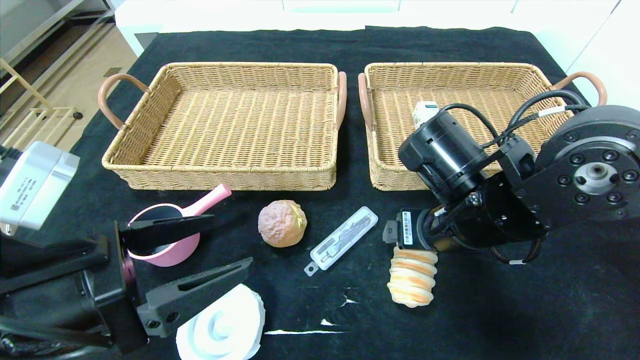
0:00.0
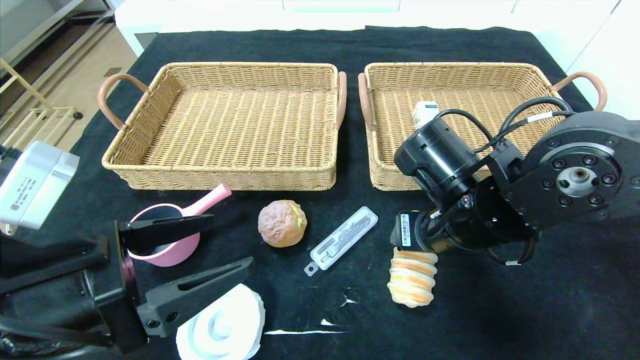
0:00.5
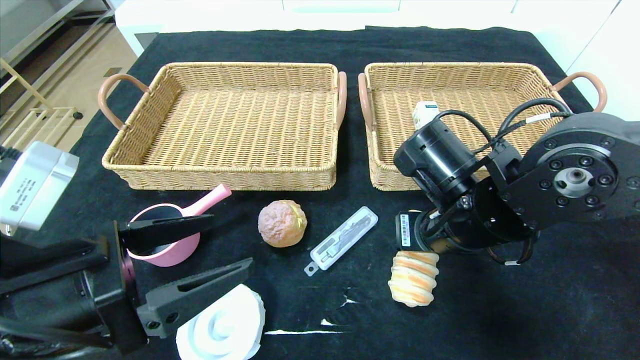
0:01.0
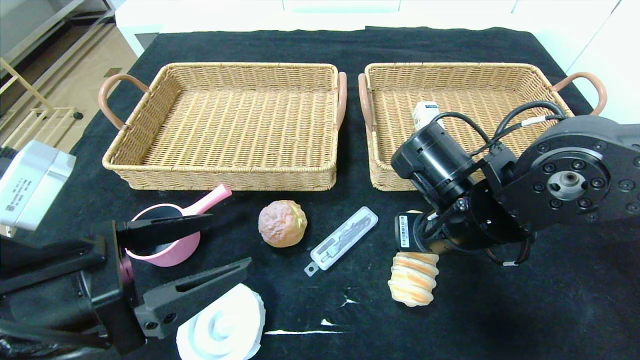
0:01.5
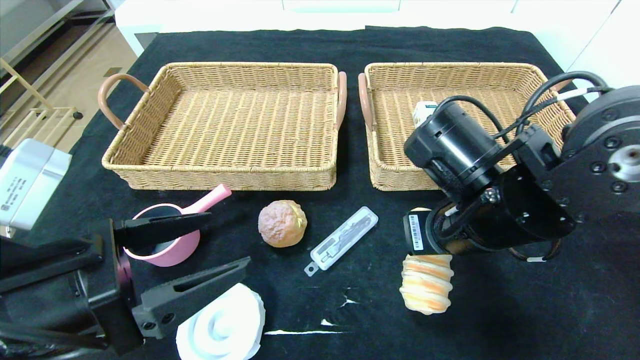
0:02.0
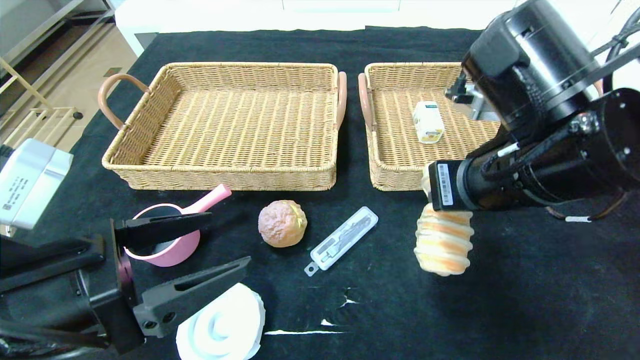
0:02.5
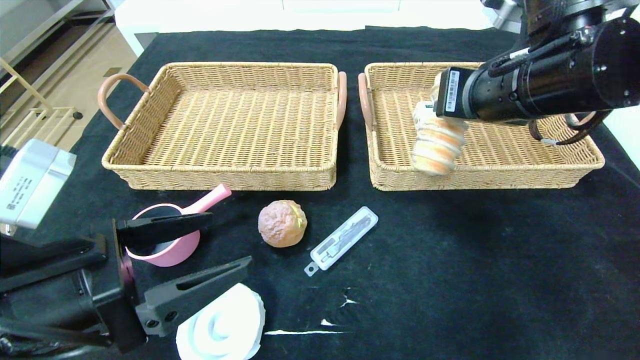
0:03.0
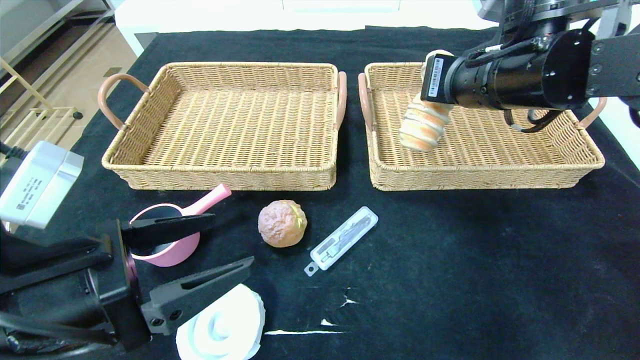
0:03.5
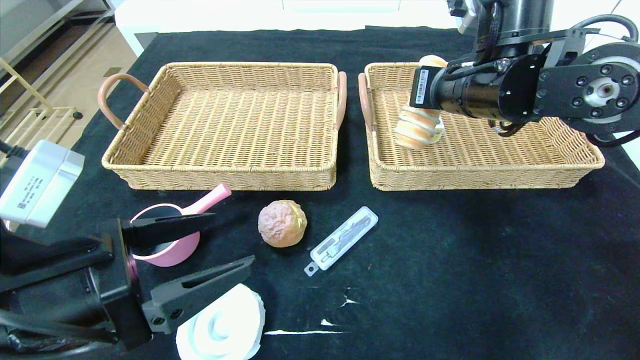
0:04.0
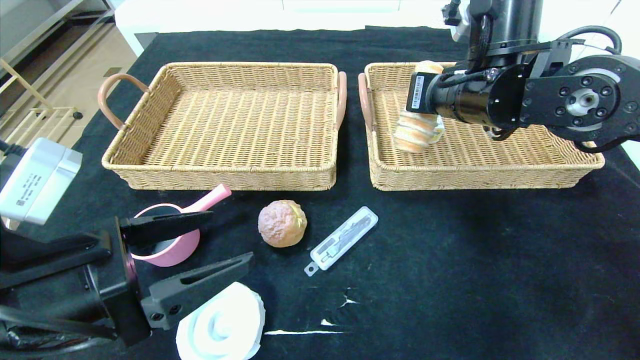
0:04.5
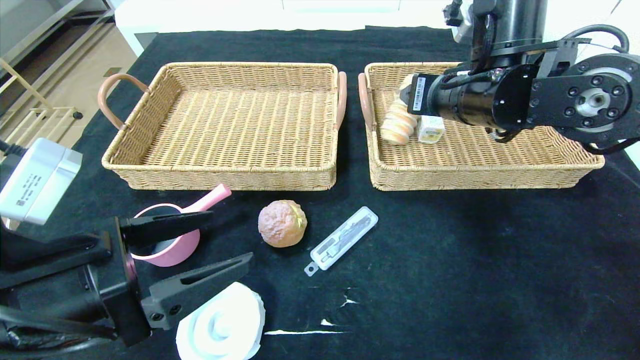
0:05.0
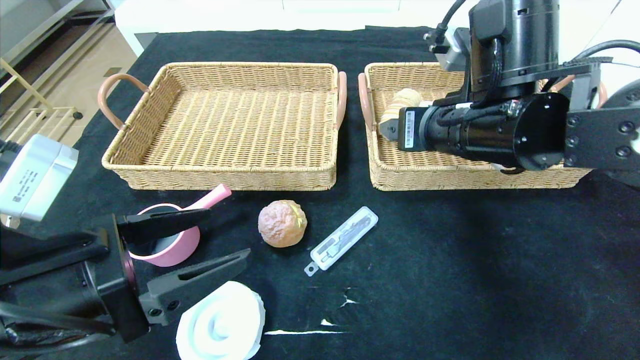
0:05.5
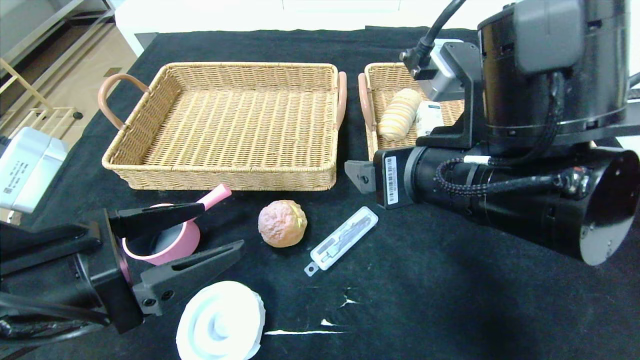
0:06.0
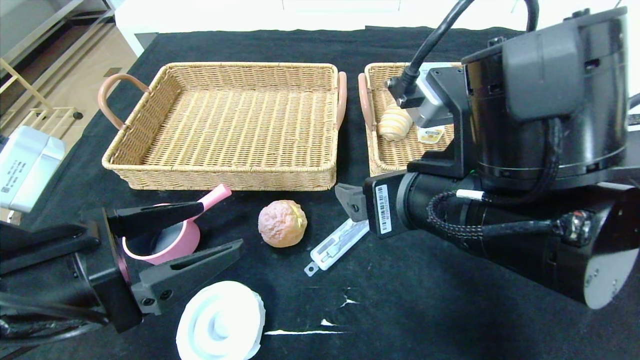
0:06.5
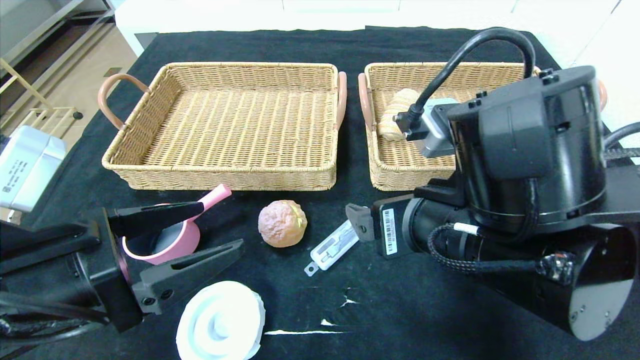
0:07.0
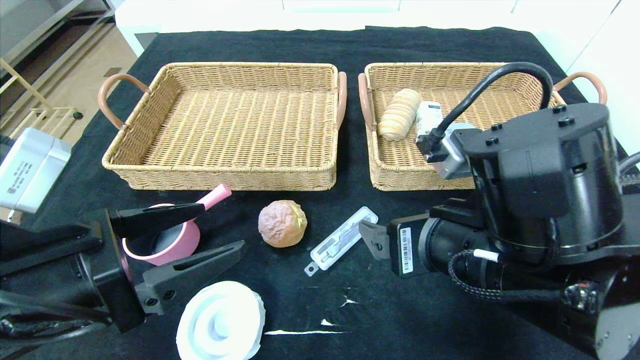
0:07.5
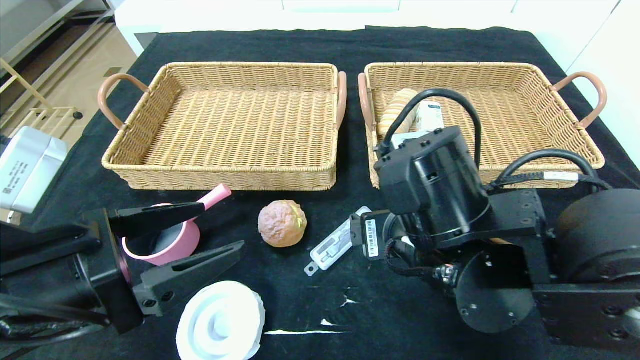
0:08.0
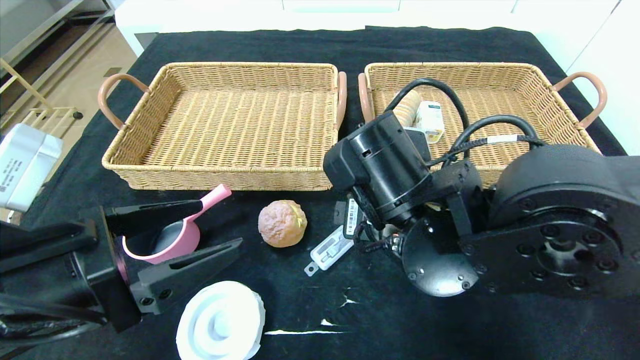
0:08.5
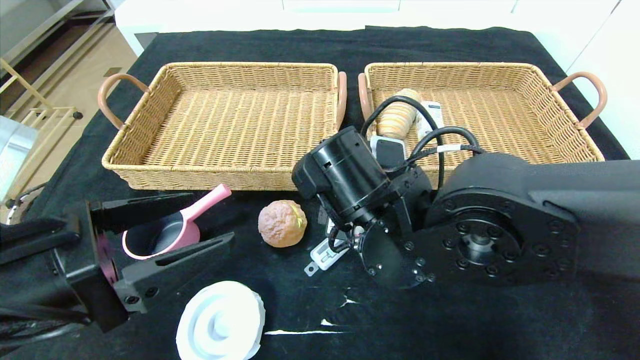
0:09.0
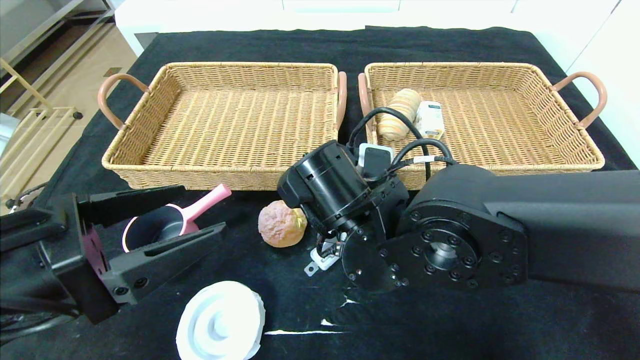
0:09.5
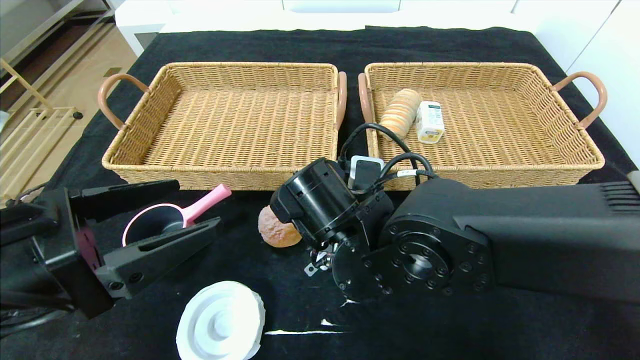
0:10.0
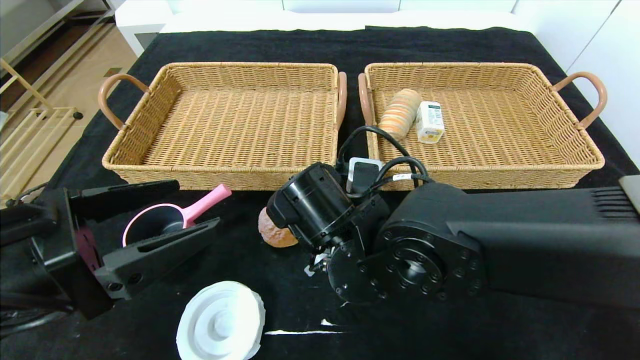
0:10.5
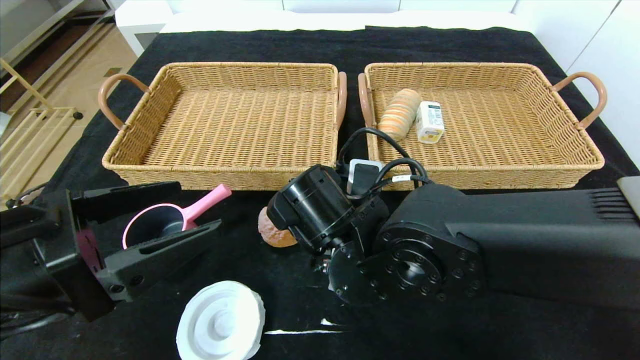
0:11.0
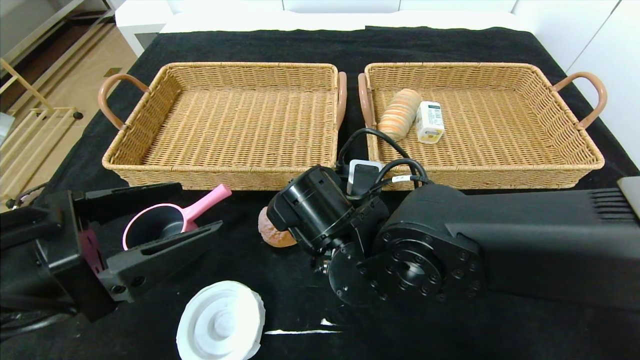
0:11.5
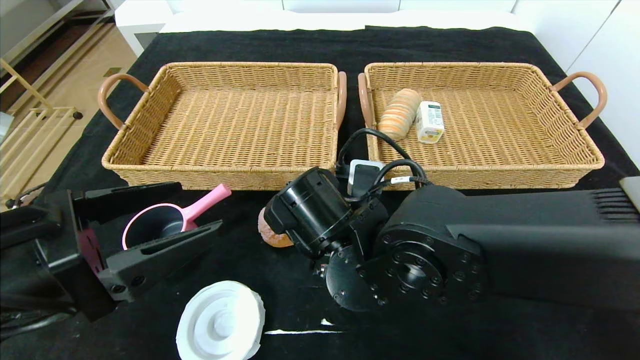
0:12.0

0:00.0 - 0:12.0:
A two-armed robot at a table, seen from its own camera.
Step, 0:00.0 - 0:05.0: Grasp the long bread and put it in the right basket.
0:00.0 - 0:02.0: The right gripper closes.
0:02.0 - 0:04.0: The right gripper is displaced forward and upward by some 15 cm.
0:04.0 - 0:06.0: The right gripper heads backward, covering approximately 15 cm, and opens up.
0:06.0 - 0:08.0: The right gripper heads downward, covering about 5 cm.
0:08.0 - 0:10.0: The right gripper shifts approximately 5 cm to the left.
0:10.0 - 0:12.0: The right gripper closes.

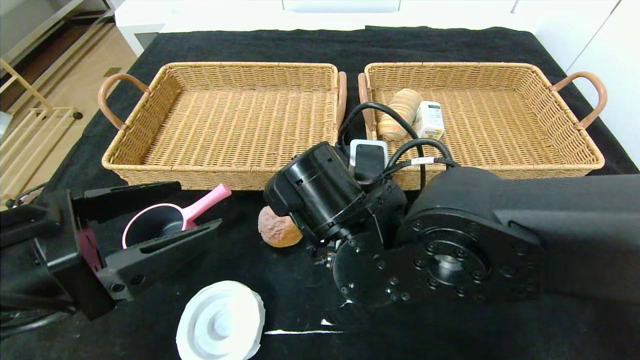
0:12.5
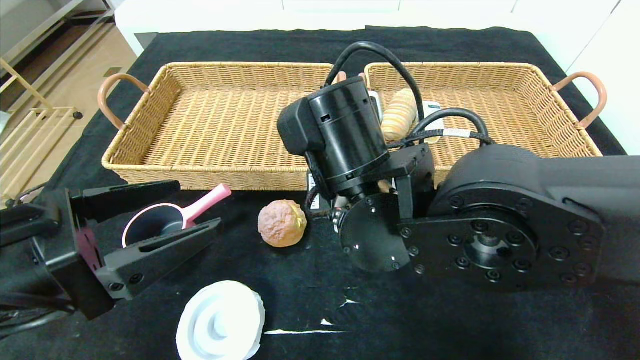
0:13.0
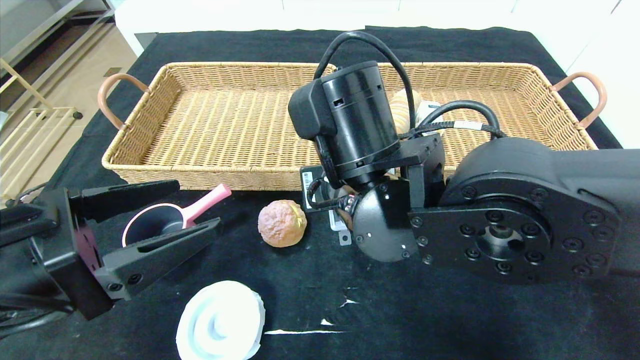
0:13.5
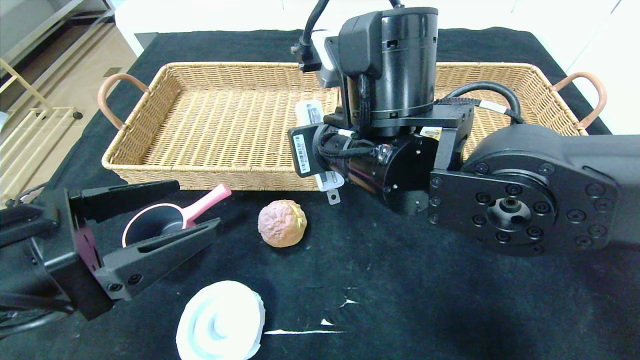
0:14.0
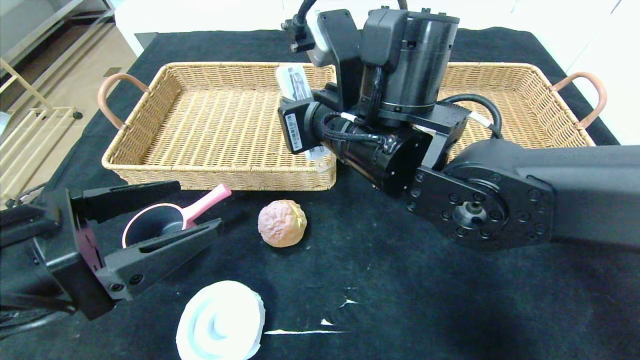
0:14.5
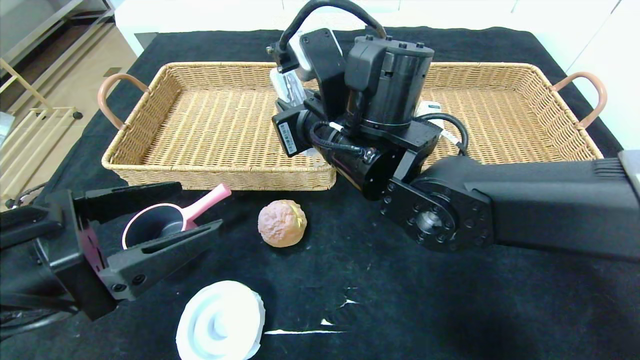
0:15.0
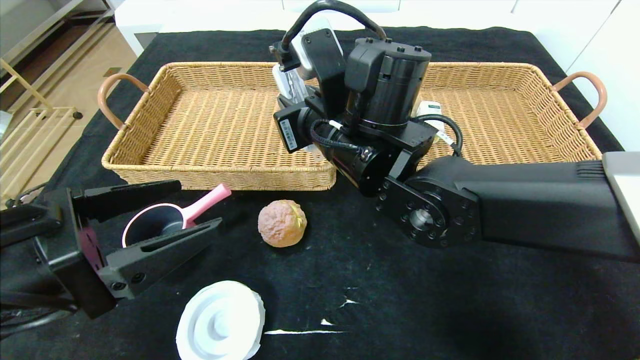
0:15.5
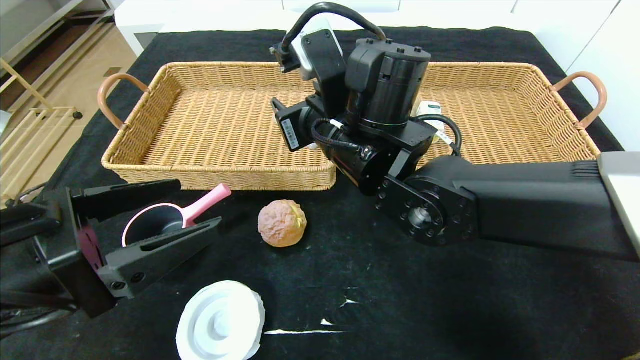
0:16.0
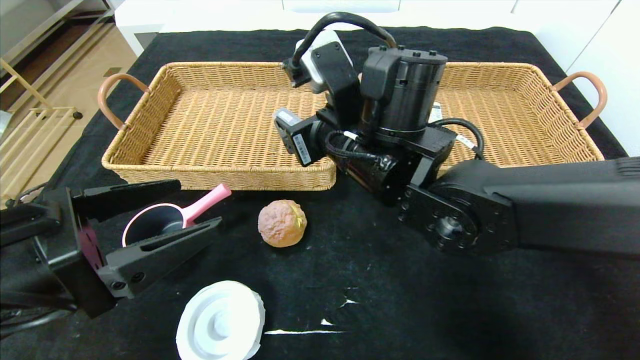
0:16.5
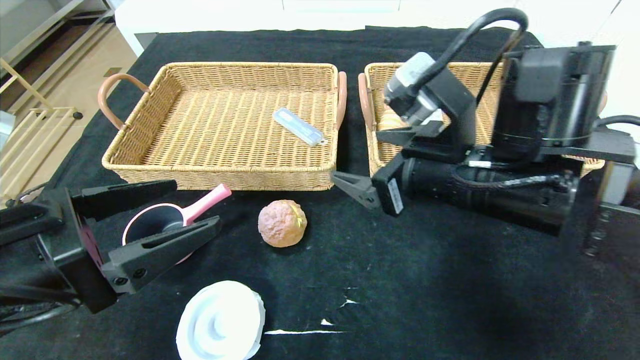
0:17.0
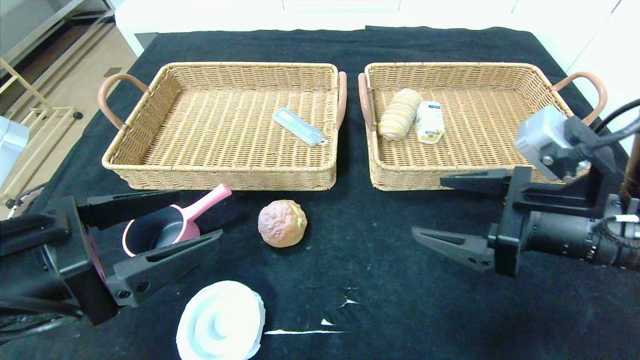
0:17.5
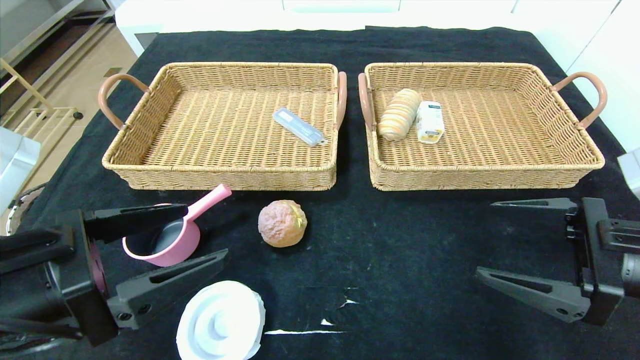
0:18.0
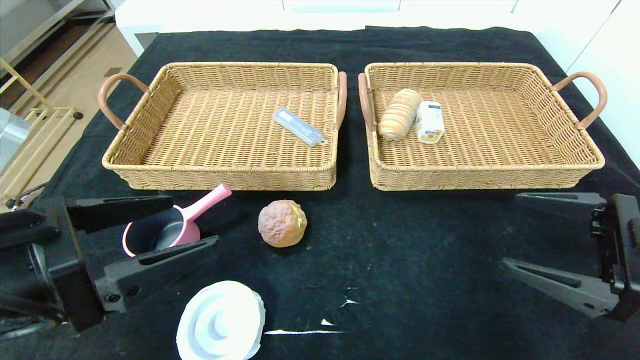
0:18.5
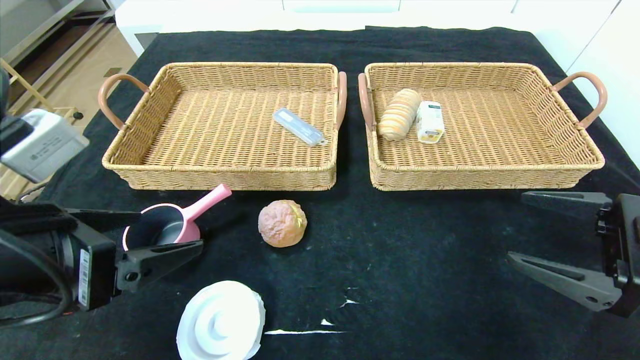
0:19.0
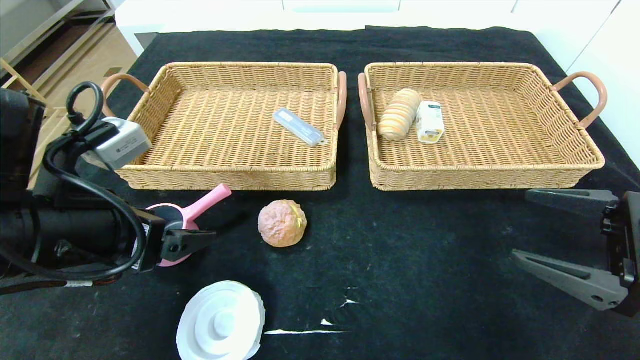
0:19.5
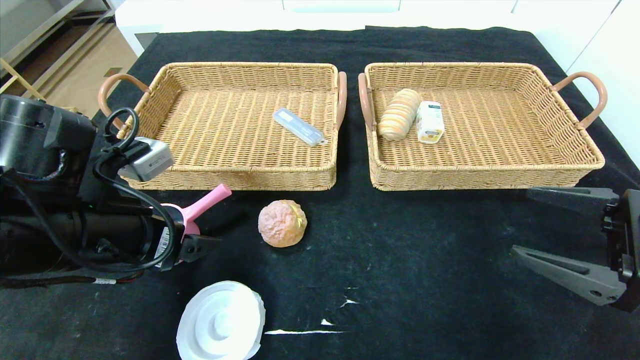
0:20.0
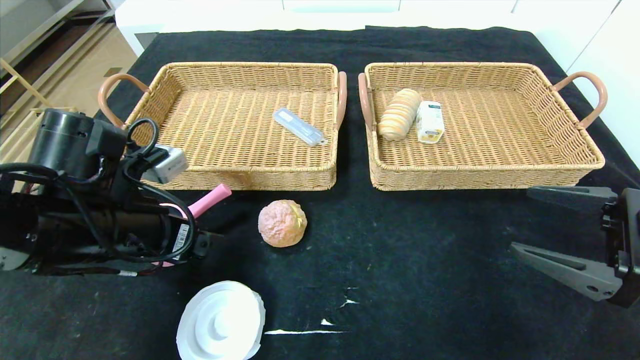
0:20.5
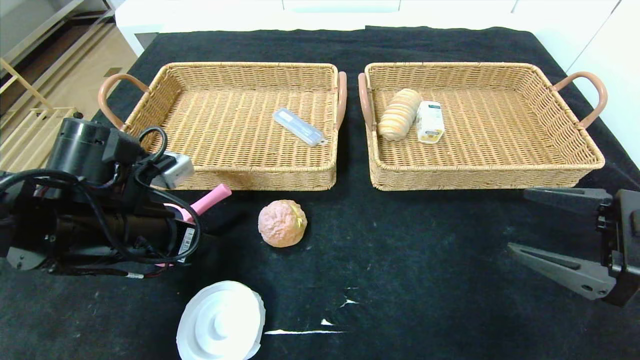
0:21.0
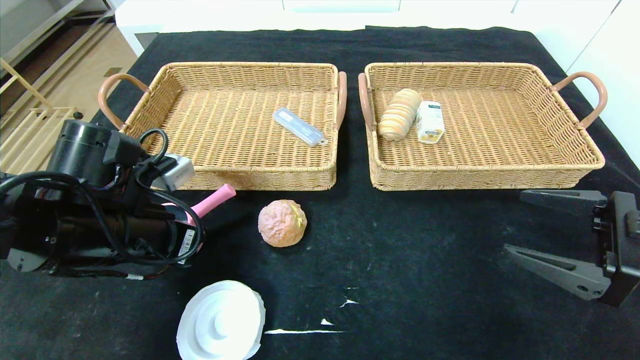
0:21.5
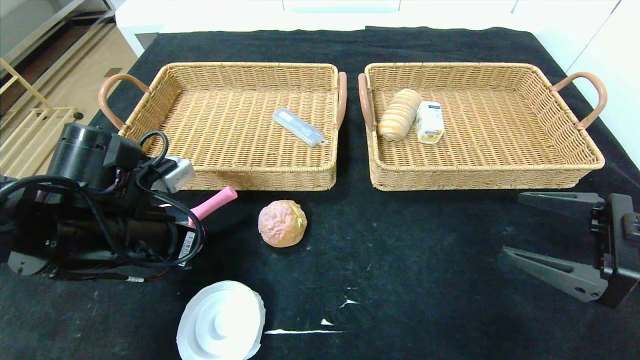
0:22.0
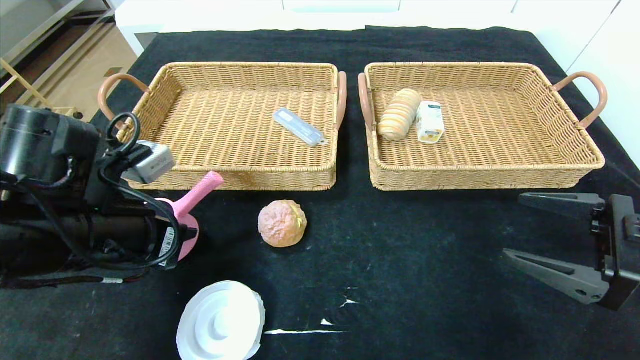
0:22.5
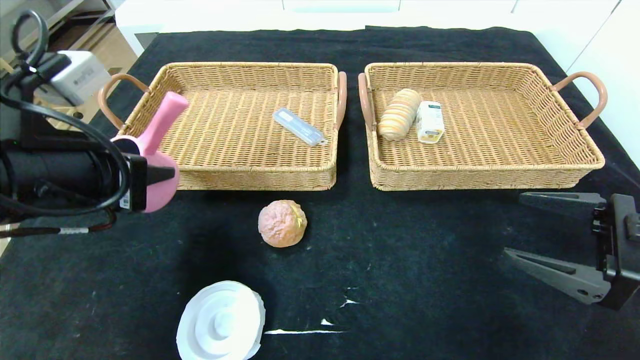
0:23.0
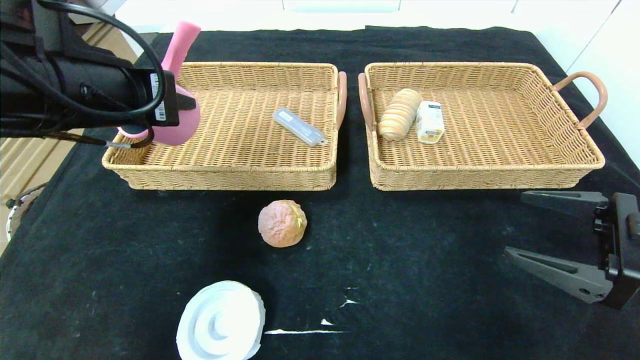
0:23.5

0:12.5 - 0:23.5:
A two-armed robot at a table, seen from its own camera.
0:12.5 - 0:14.5: The right gripper heads upward, covering approximately 10 cm.
0:14.5 - 0:16.0: The right gripper opens up.
0:16.0 - 0:18.0: The right gripper is displaced to the right and backward by approximately 30 cm.
0:18.0 - 0:20.0: The left gripper shifts roughly 10 cm forward.
0:20.0 - 0:21.5: The left gripper closes.
0:21.5 - 0:23.5: The left gripper heads upward, covering roughly 15 cm.
